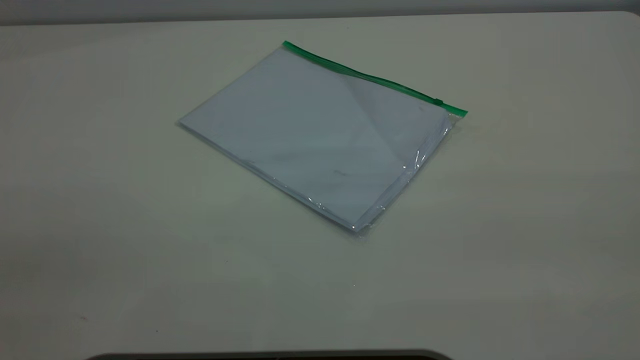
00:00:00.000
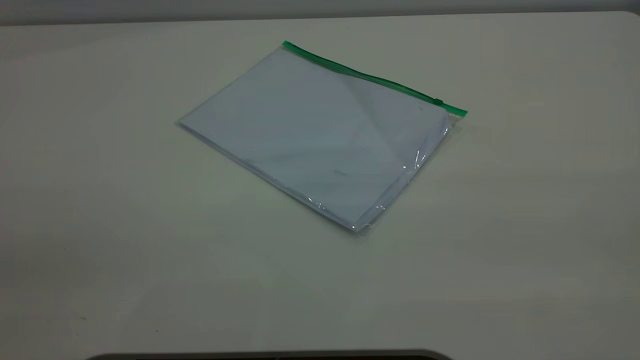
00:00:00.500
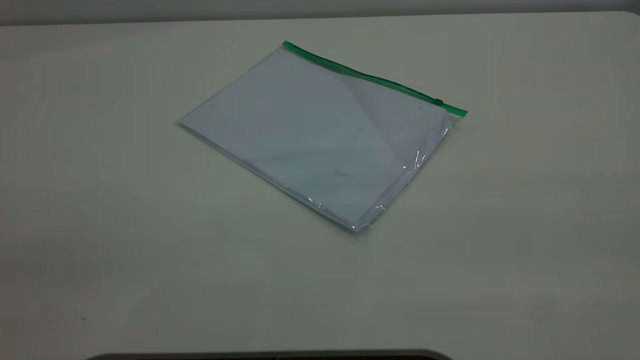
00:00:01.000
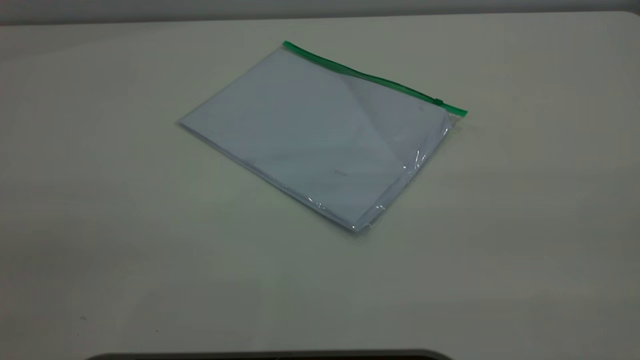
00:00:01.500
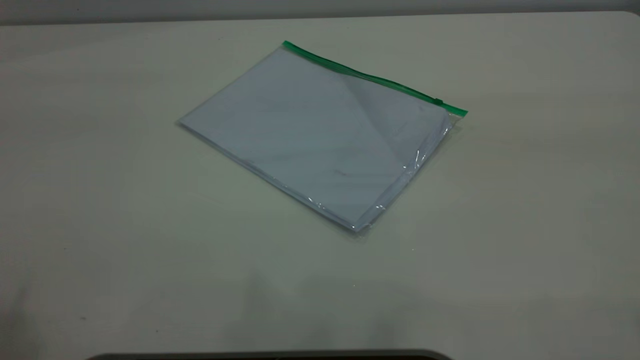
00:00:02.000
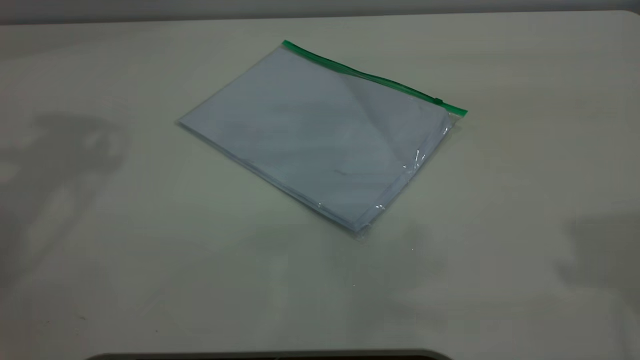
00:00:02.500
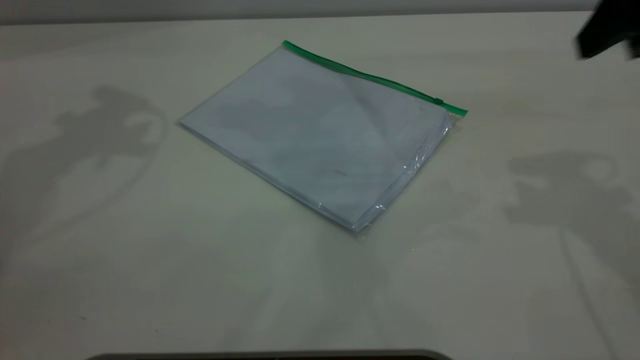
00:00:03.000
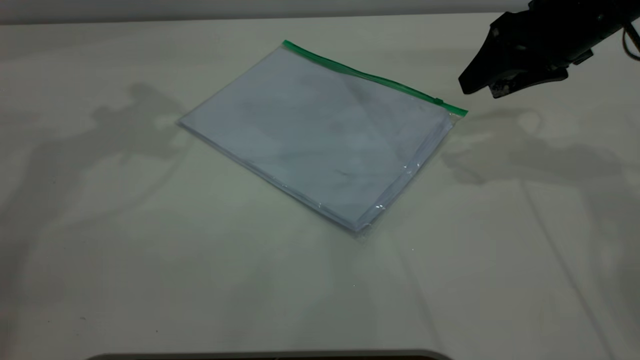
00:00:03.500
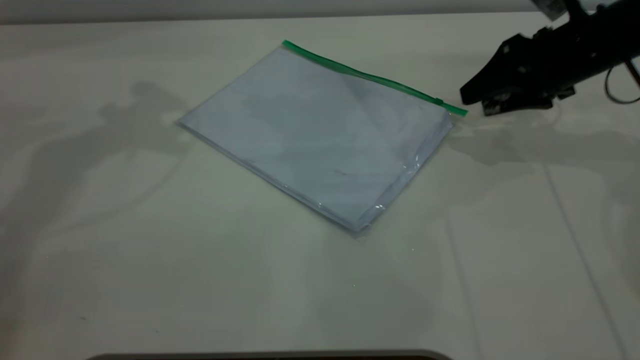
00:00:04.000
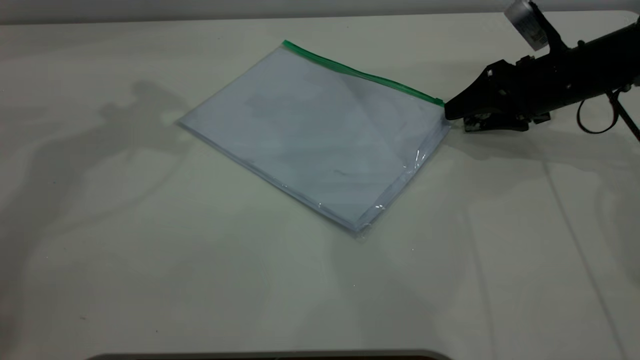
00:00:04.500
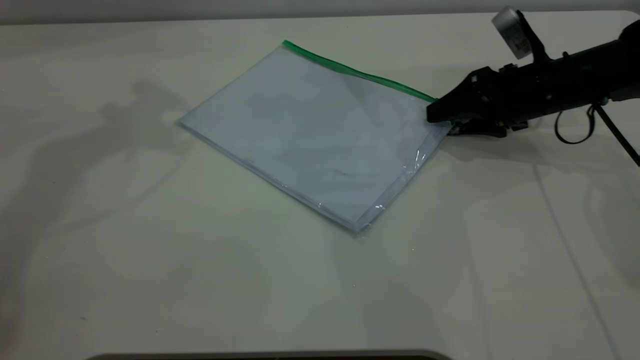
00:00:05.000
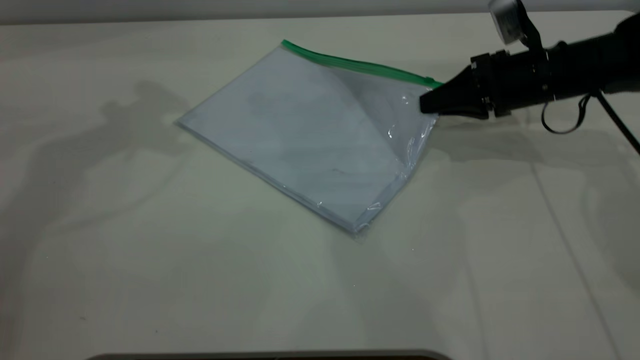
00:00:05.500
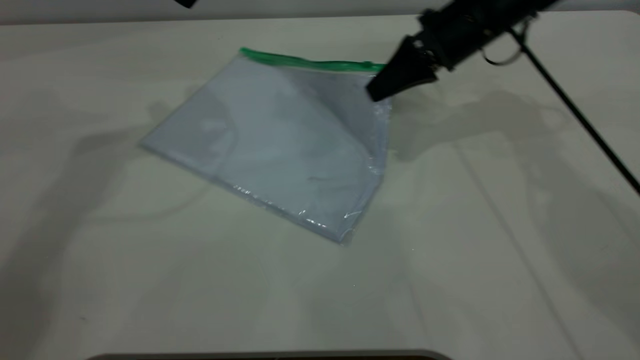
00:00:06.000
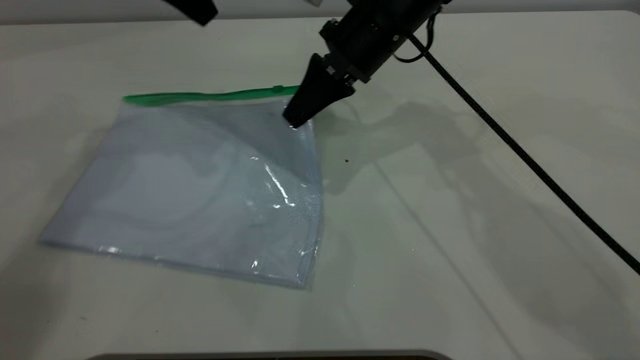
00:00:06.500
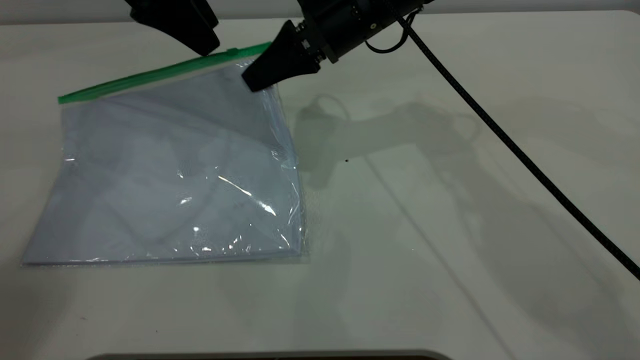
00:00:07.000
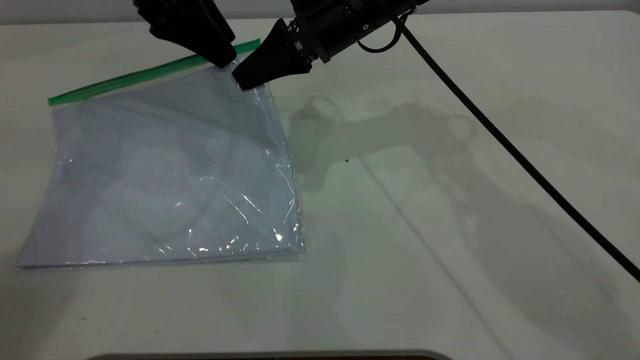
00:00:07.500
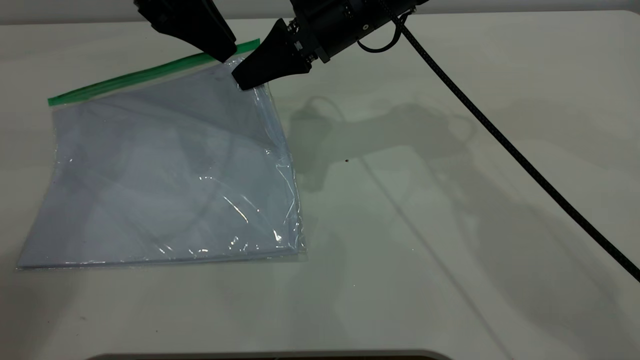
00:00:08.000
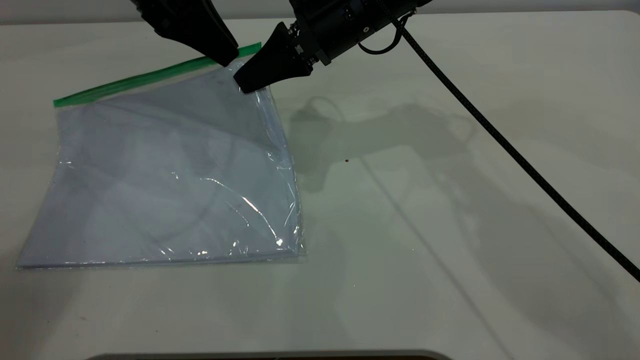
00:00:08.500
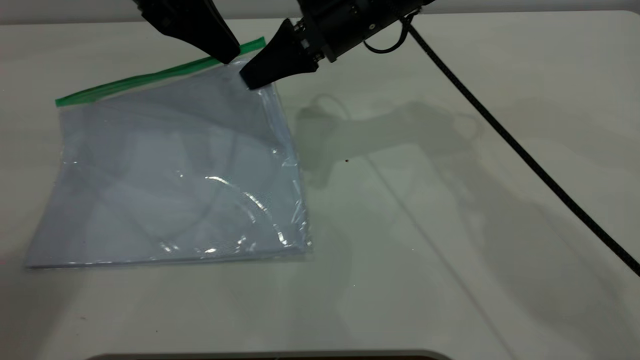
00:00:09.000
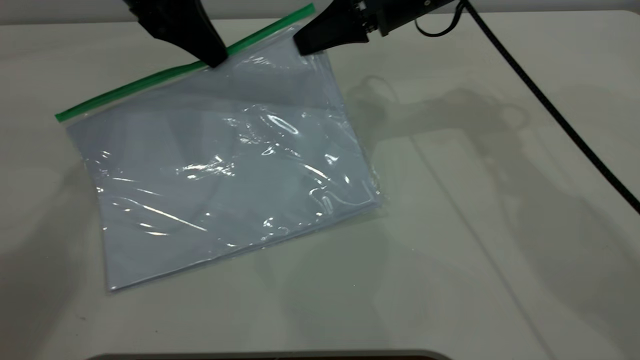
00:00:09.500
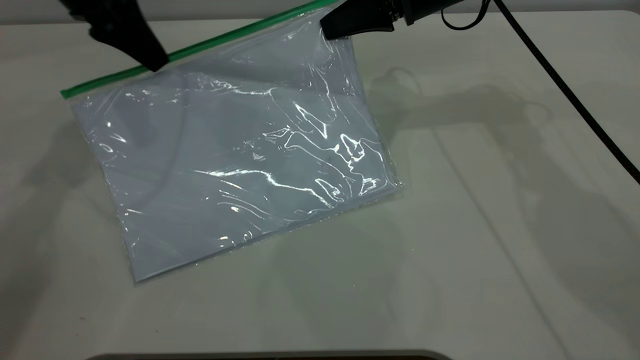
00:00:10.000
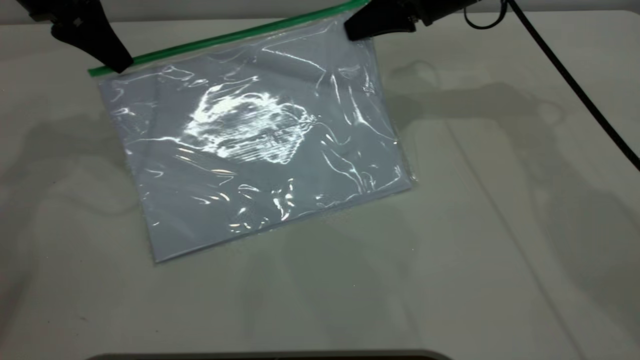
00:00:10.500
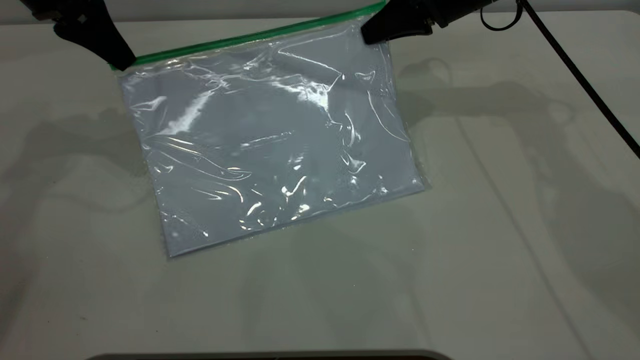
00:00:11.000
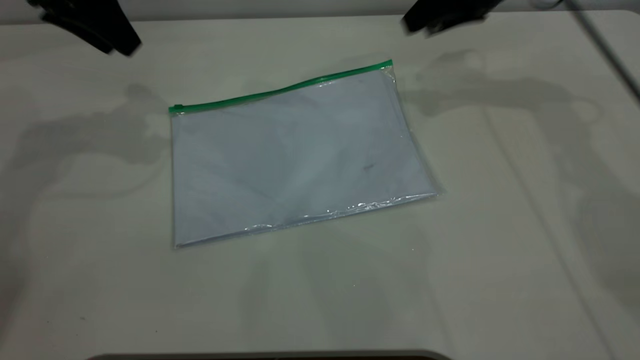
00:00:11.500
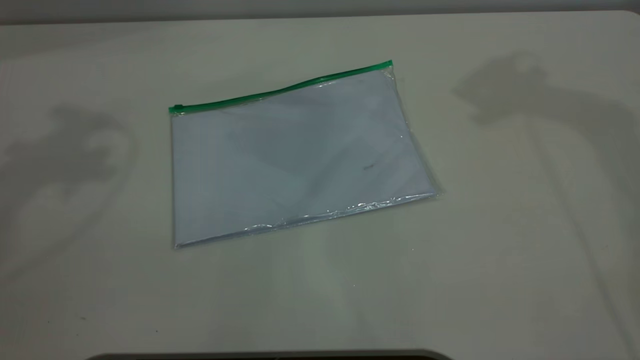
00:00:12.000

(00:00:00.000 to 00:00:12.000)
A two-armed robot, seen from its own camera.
Step, 00:00:00.000 - 00:00:05.500: Pick up the transparent plastic bag with the right gripper.
Step, 00:00:06.000 - 00:00:11.000: Pulling up the zipper on the transparent plastic bag with the left gripper to close it.
00:00:02.000 - 00:00:04.000: The right gripper travels forward and downward by approximately 50 cm.
00:00:04.000 - 00:00:06.000: The right gripper moves to the left, roughly 15 cm, and closes; the left gripper moves approximately 5 cm.
00:00:06.000 - 00:00:08.000: The right gripper moves to the left, about 10 cm. The left gripper moves approximately 5 cm, and closes up.
00:00:08.000 - 00:00:10.000: The right gripper heads to the right, covering about 10 cm. Meanwhile the left gripper moves to the left, roughly 5 cm, and closes.
00:00:10.000 - 00:00:12.000: The right gripper moves upward and to the right, some 30 cm, and opens its fingers. Meanwhile the left gripper shifts about 25 cm upward, and opens.

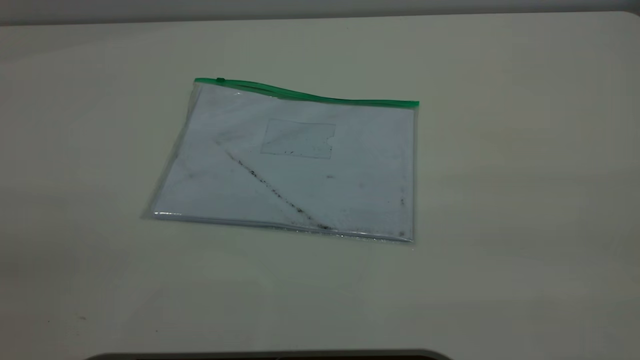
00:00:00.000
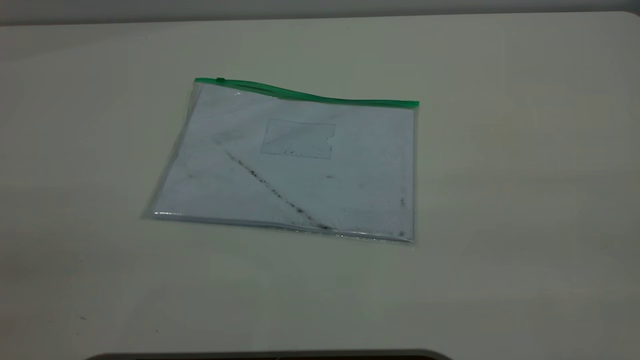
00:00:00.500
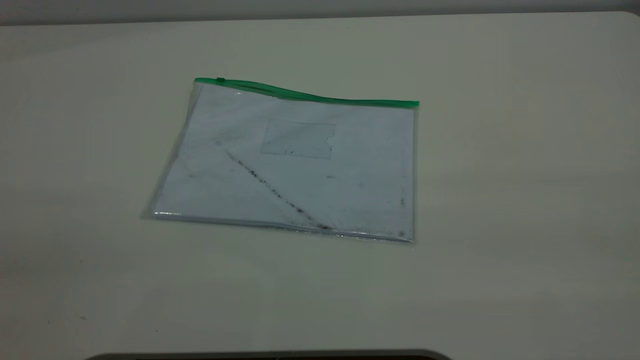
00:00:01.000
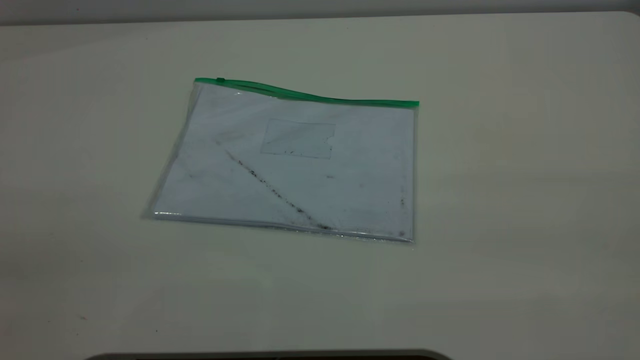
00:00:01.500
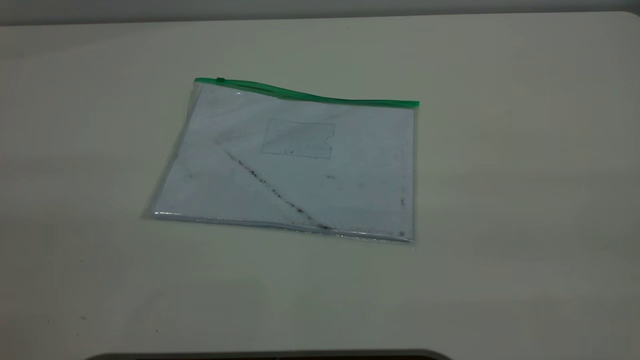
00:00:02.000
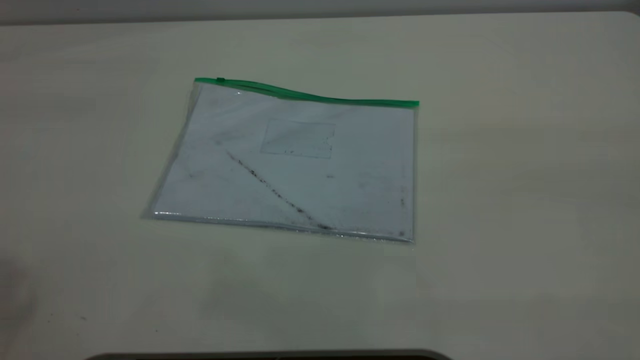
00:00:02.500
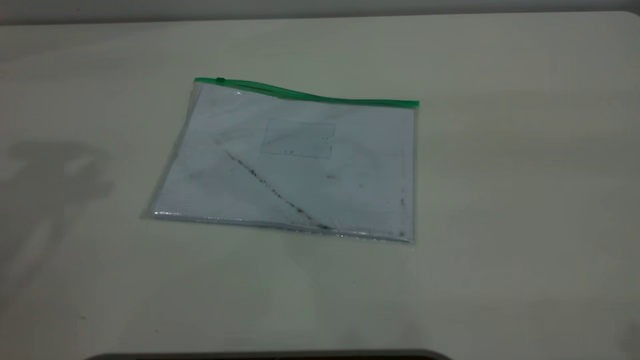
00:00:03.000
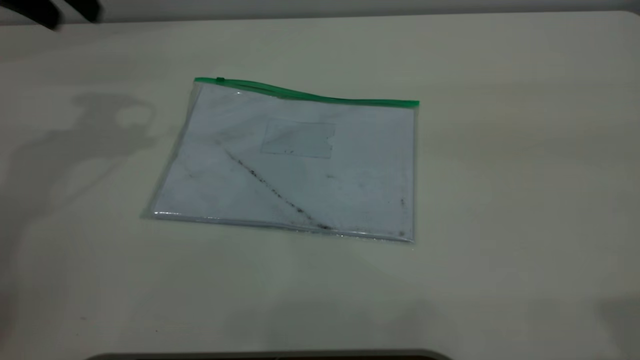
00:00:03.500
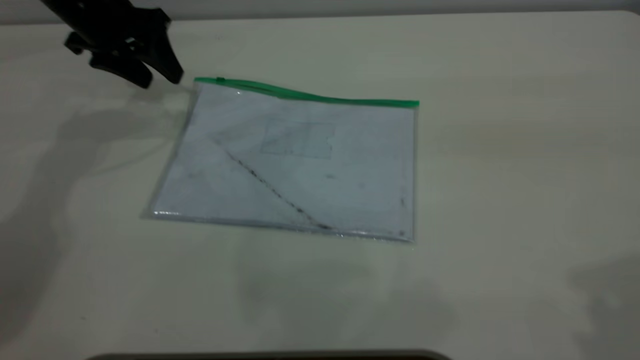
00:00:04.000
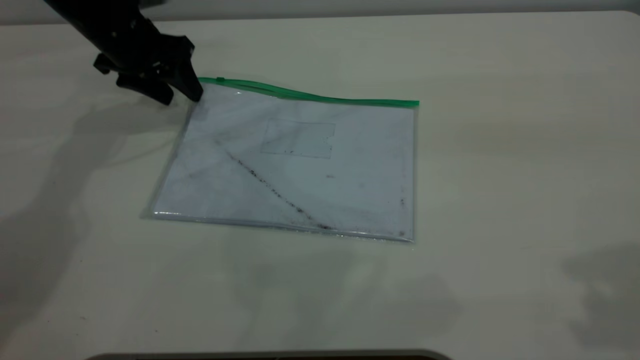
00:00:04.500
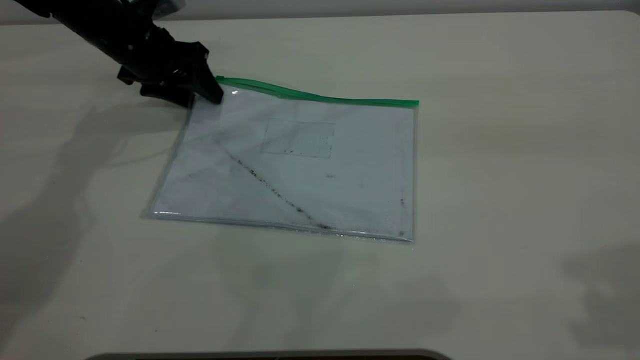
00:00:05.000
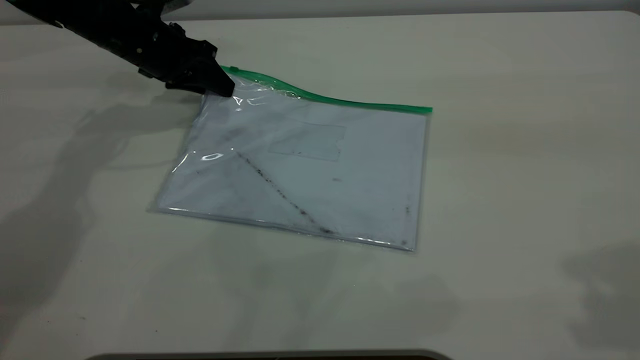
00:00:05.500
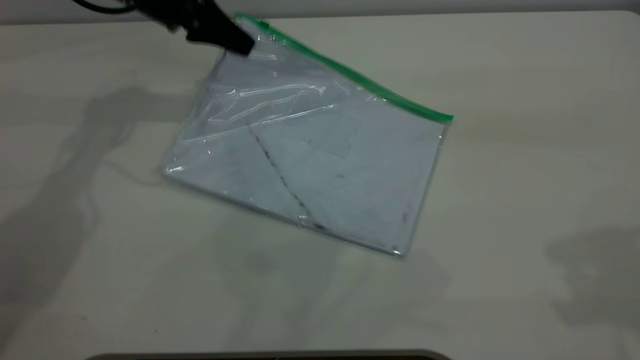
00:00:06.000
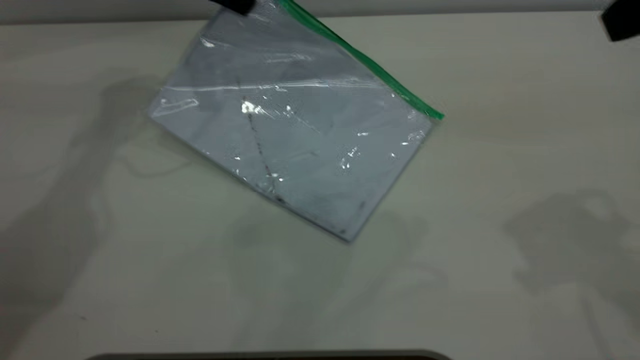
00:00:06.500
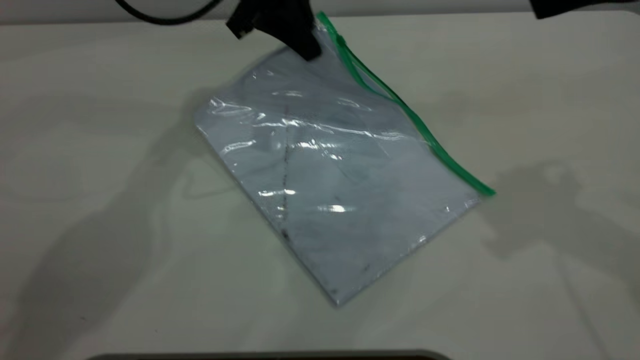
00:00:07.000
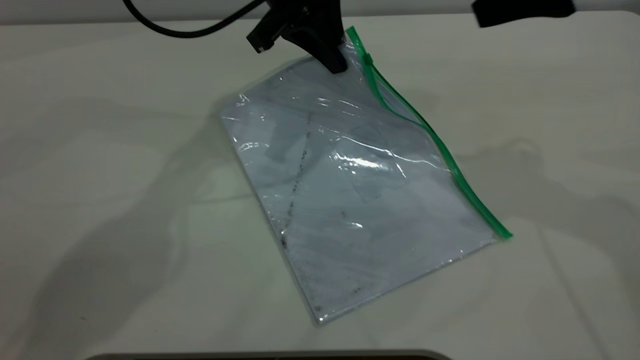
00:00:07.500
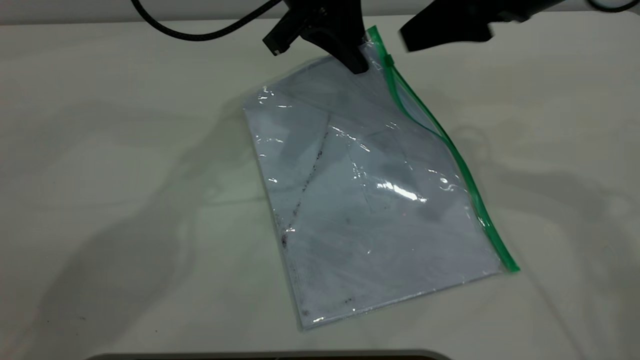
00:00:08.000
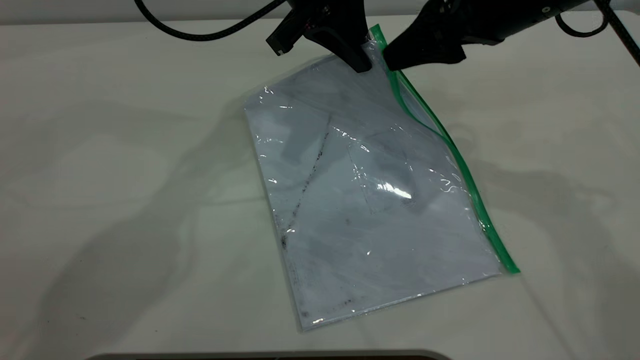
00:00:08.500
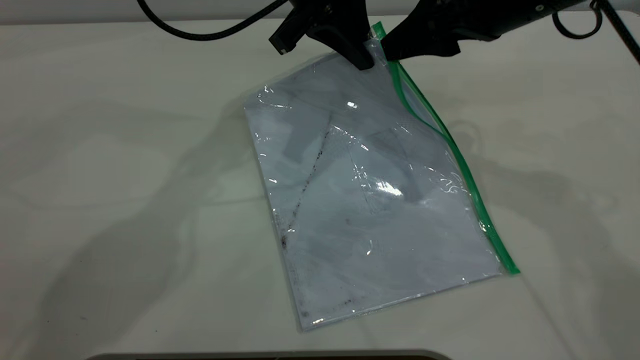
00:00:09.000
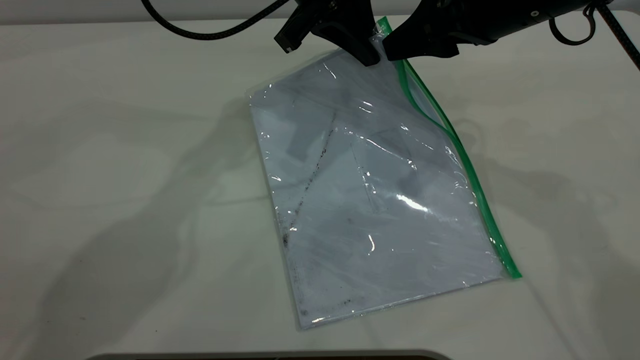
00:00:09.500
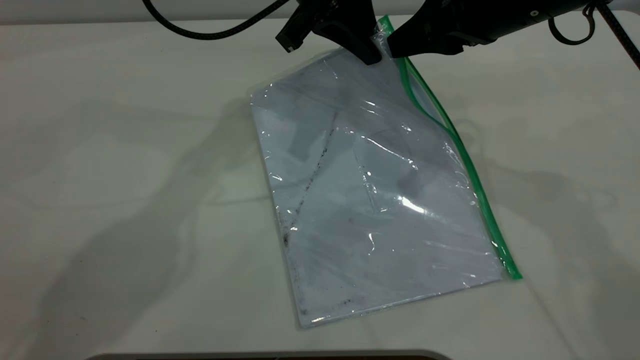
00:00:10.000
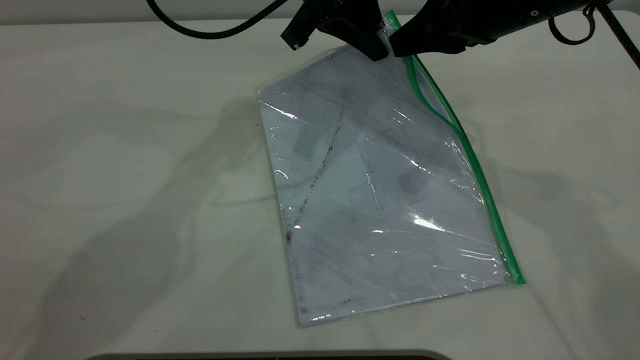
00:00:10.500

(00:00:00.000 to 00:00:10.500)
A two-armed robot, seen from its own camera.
Step, 00:00:03.500 - 00:00:05.500: Pick up the transparent plastic bag with the left gripper.
00:00:02.000 - 00:00:04.000: The left gripper moves forward and downward, roughly 50 cm.
00:00:04.000 - 00:00:06.500: The left gripper goes about 10 cm to the right and upward, and closes. The right gripper moves forward and downward, roughly 10 cm.
00:00:06.500 - 00:00:08.500: The right gripper goes approximately 15 cm forward, downward and to the left; the left gripper shifts about 15 cm to the right and backward.
00:00:08.500 - 00:00:10.500: The right gripper closes its fingers.
